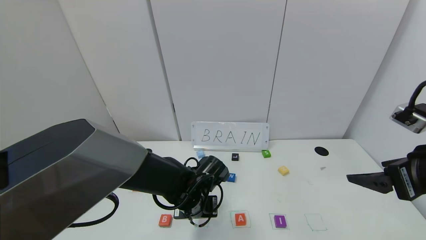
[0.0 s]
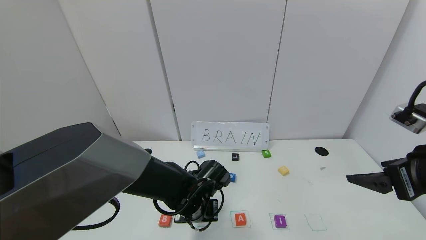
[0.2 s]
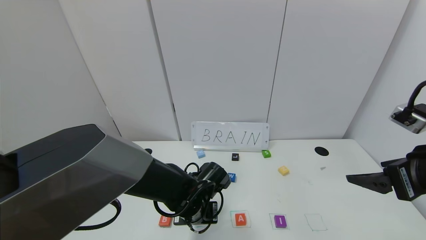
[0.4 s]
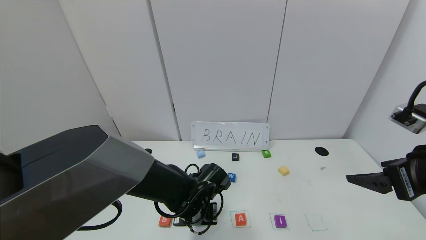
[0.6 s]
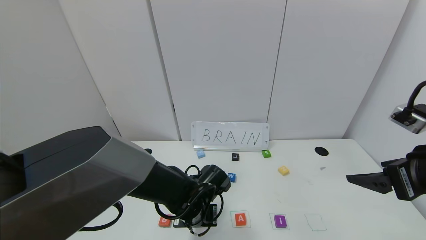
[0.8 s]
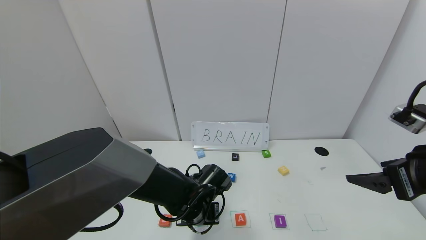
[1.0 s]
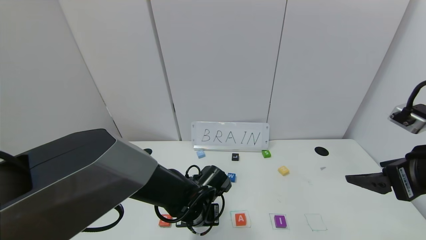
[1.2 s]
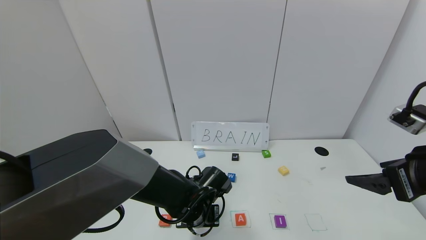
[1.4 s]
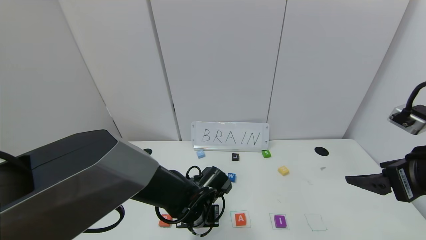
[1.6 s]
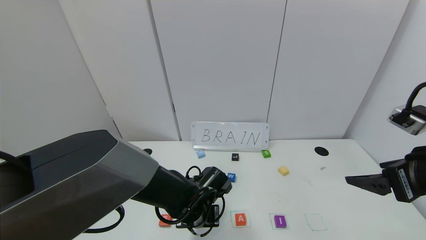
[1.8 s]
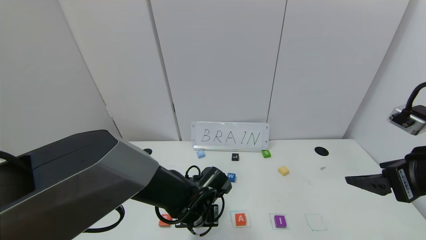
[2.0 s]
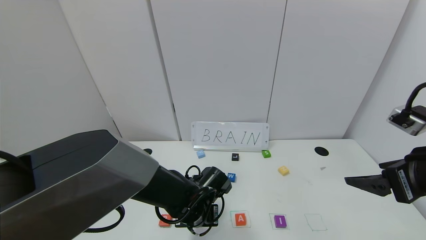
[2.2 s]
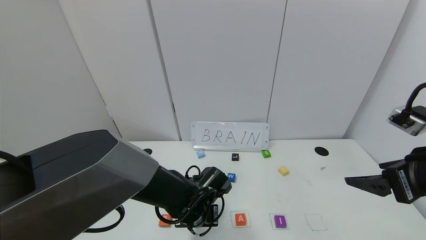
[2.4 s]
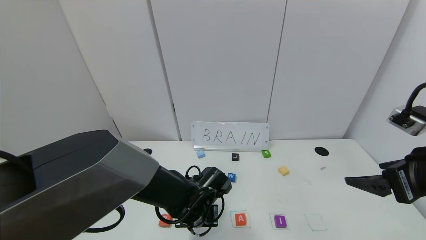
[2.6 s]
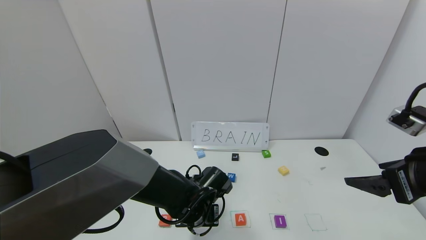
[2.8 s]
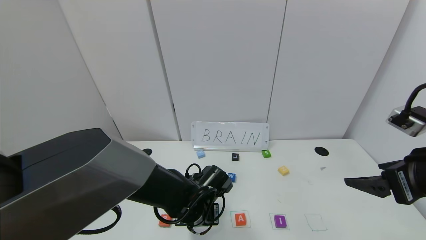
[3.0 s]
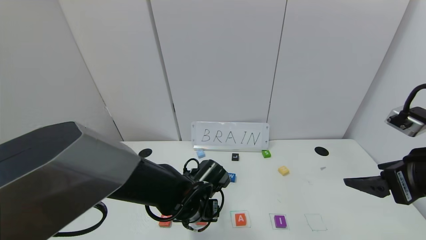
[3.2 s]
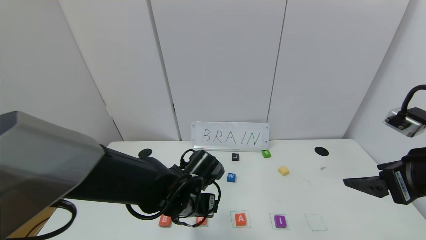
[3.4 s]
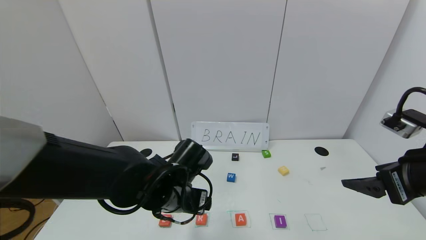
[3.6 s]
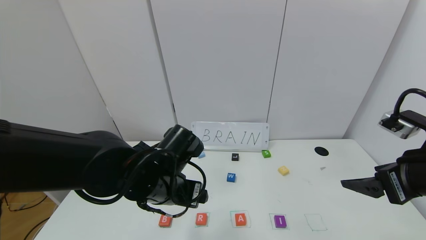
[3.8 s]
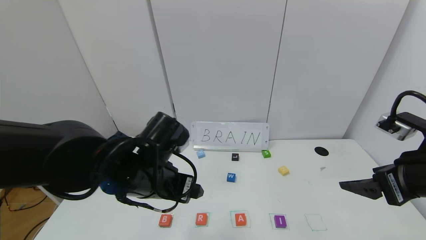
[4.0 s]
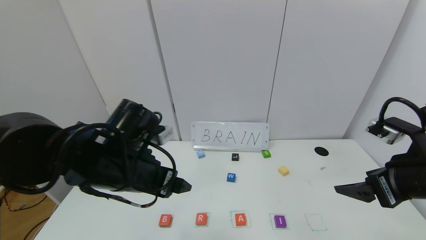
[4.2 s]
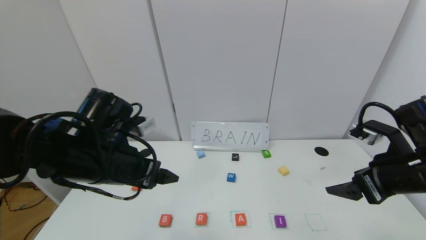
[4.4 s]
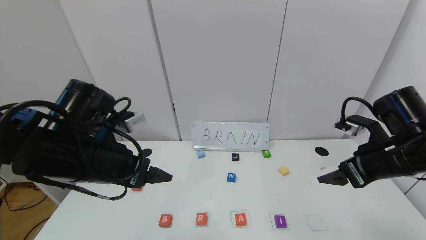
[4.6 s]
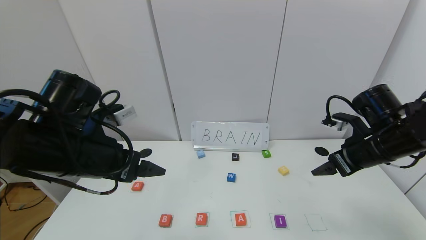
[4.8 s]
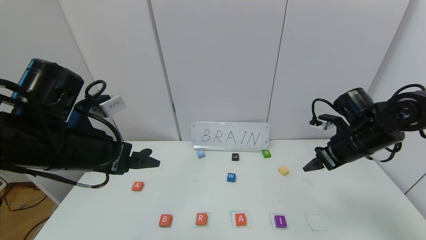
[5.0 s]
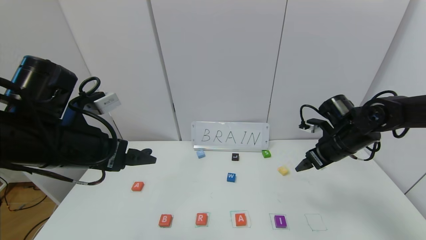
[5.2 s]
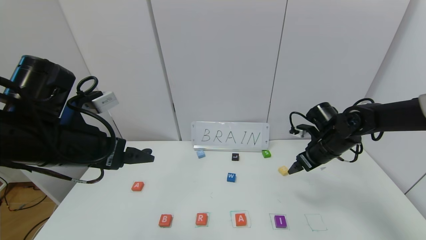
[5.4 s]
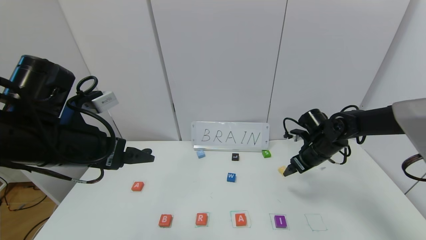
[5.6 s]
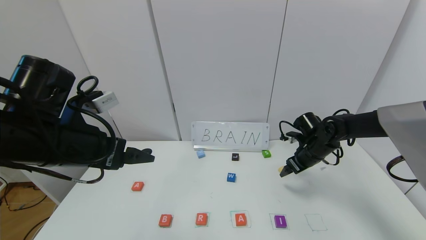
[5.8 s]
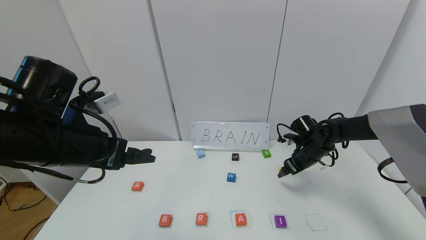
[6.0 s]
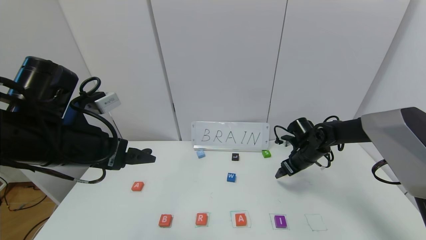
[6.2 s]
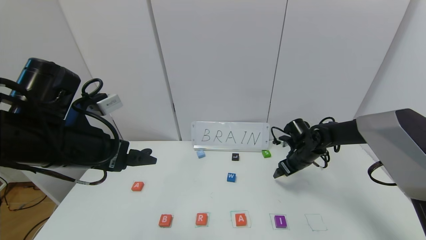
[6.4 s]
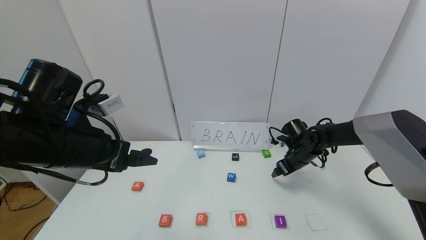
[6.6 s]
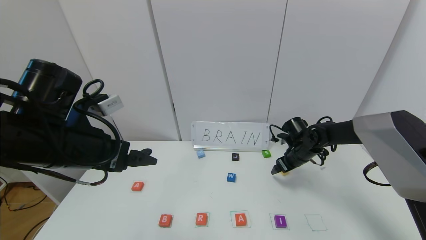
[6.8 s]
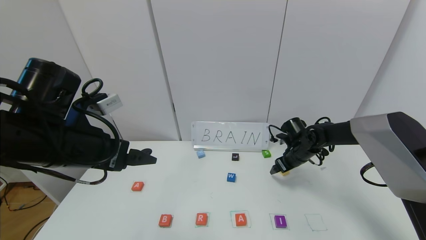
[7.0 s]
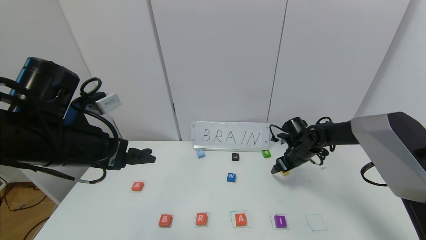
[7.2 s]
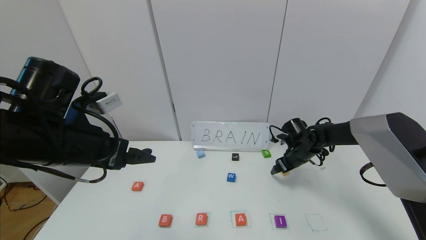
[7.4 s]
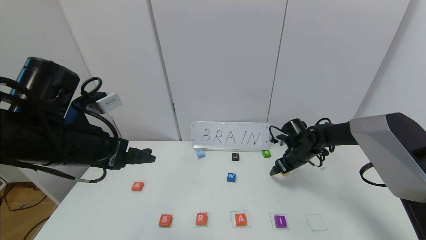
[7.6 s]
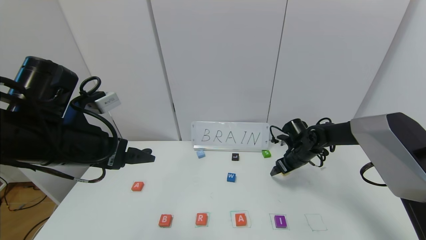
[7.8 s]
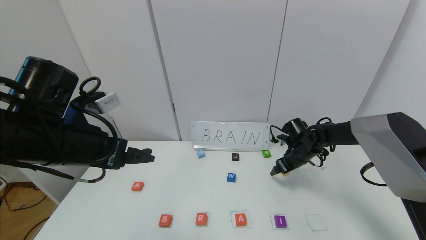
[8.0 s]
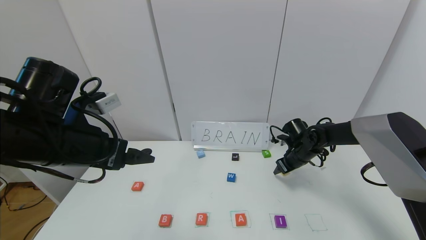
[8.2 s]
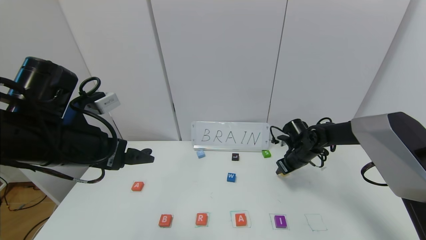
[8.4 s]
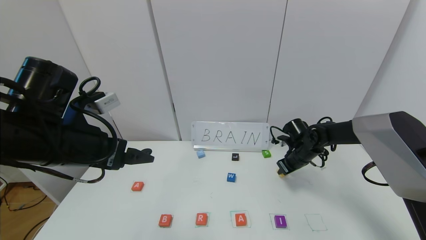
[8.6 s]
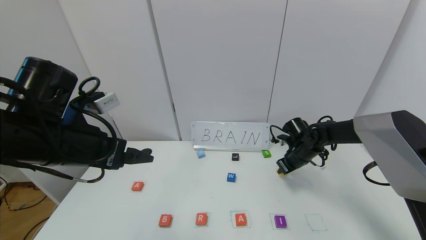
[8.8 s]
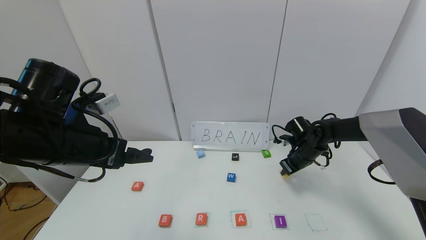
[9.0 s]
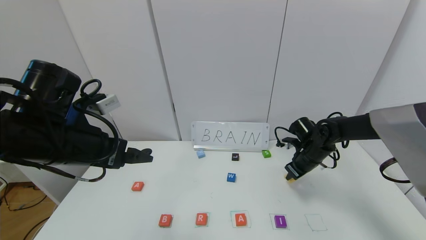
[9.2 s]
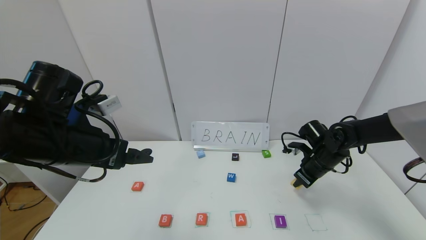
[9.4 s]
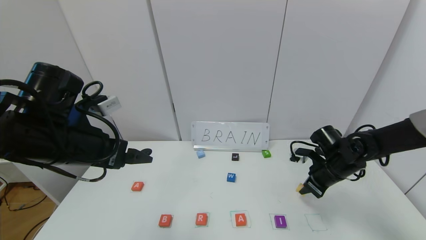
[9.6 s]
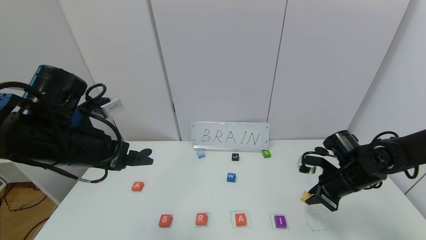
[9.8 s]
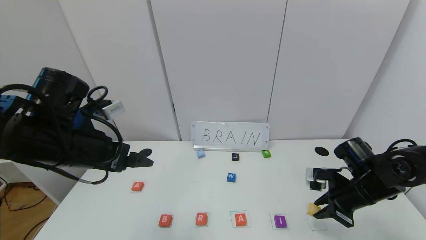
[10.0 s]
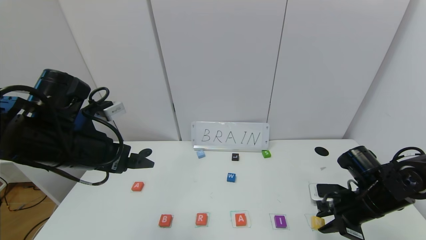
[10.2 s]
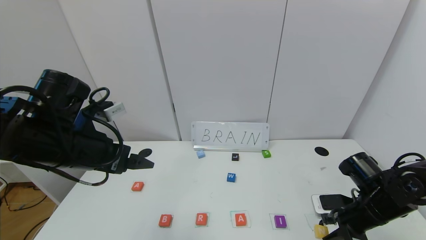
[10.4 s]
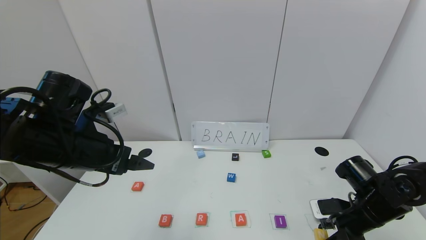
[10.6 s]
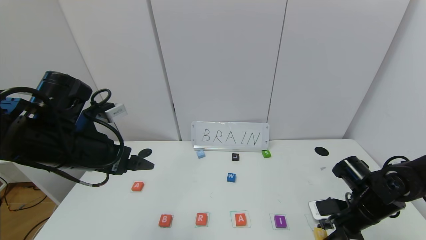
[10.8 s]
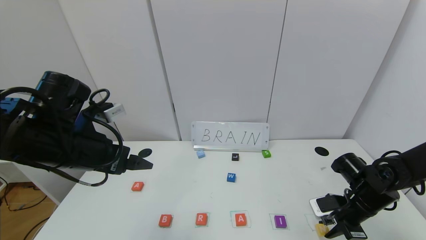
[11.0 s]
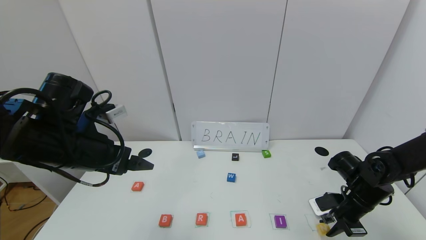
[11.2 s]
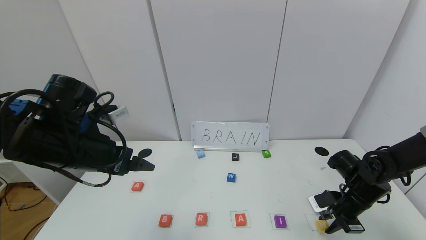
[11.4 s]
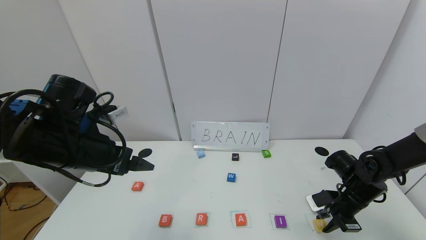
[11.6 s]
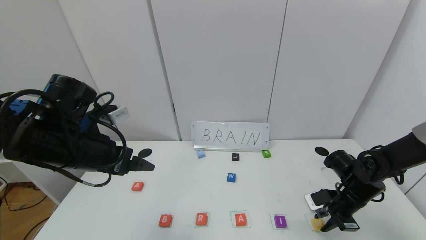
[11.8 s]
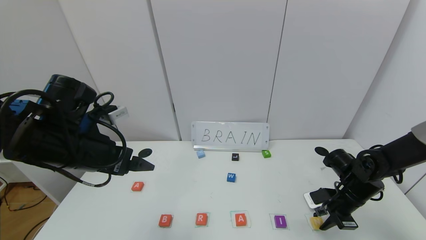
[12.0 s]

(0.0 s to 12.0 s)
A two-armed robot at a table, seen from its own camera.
Task of the whole recording: use the gripper to find blocks with the letters b, a, a, and i on the table and arrange them into BAAI, then find r and N and turn the arranged baai into brian.
Step, 0.0 s - 2.8 s: Place the block R in the second location.
0.0 s - 1.6 s: The grippers make only small movements.
1.6 s - 3.0 s: The left gripper opens.
3.0 s - 4.4 s: The left gripper moves upward and to the left, roughly 20 cm. The right gripper changes place by some 5 cm.
4.4 s - 6.0 s: The left gripper moves approximately 5 cm. Meanwhile the right gripper is displaced forward and downward by roughly 25 cm.
6.0 s - 7.6 s: The grippers move only a little.
7.6 s - 9.0 s: The right gripper closes its fingers.
9.0 s - 10.4 s: The right gripper heads backward, covering about 20 cm.
10.4 s - 12.0 s: The right gripper goes about 5 cm forward.

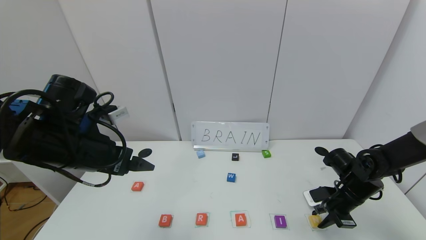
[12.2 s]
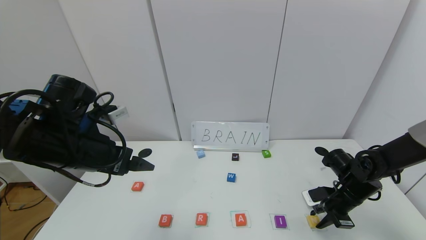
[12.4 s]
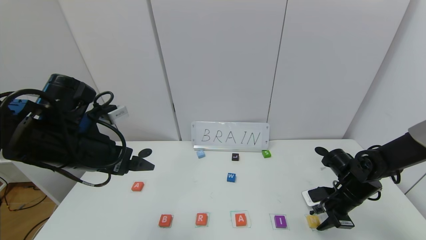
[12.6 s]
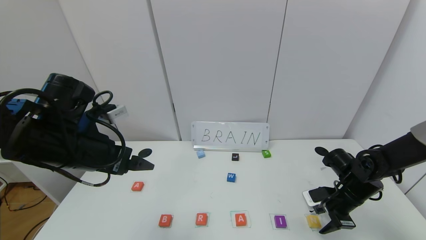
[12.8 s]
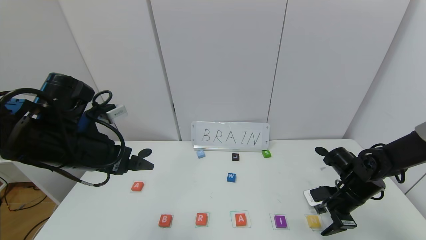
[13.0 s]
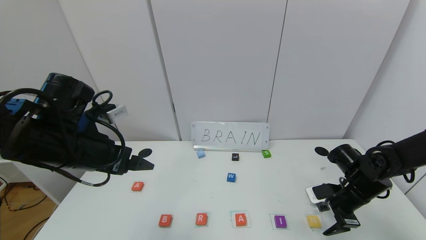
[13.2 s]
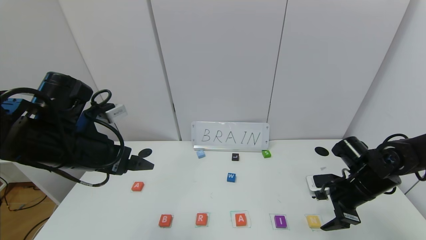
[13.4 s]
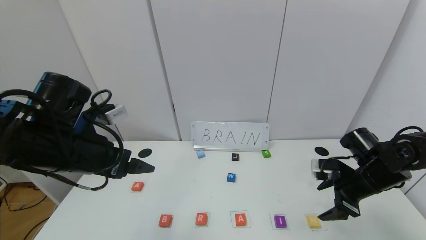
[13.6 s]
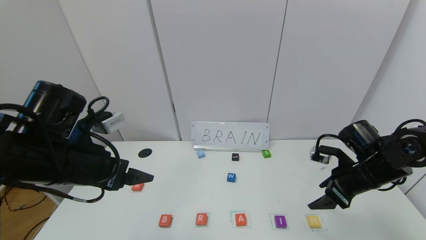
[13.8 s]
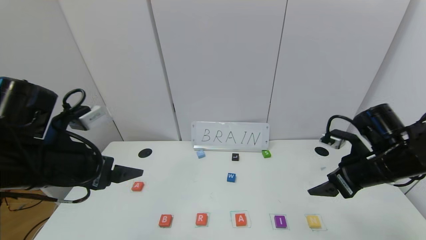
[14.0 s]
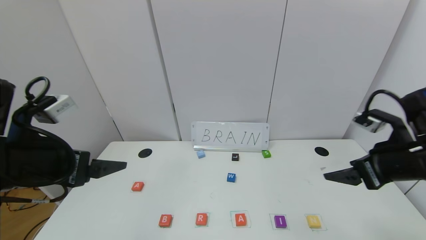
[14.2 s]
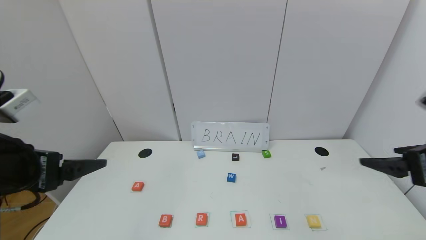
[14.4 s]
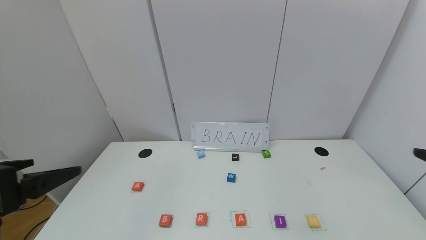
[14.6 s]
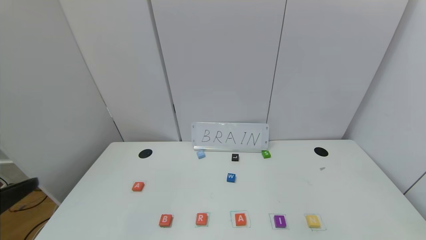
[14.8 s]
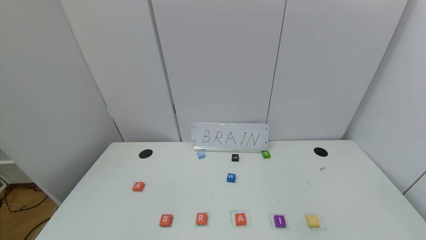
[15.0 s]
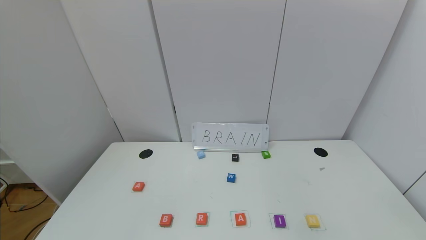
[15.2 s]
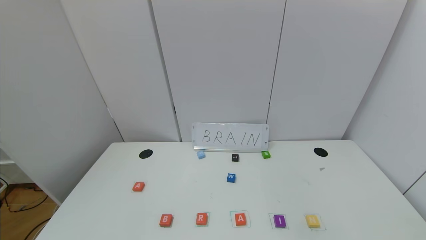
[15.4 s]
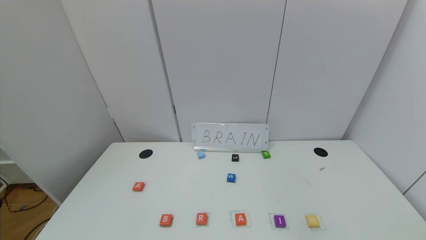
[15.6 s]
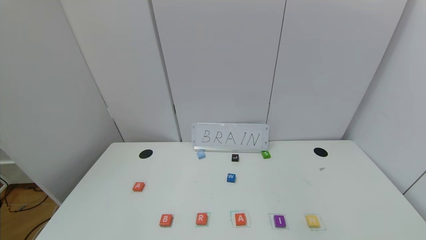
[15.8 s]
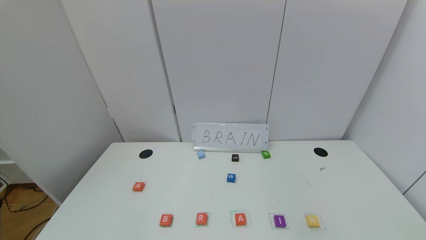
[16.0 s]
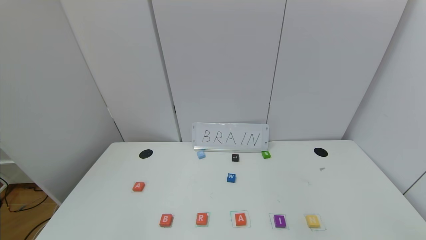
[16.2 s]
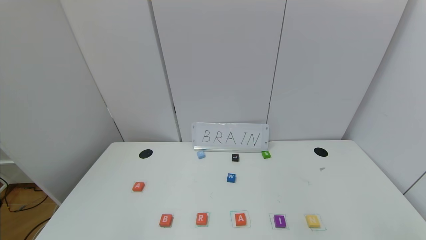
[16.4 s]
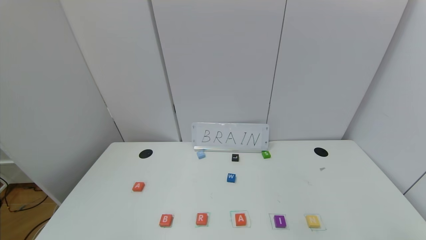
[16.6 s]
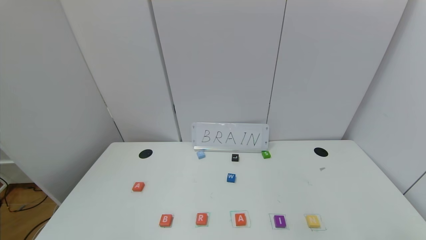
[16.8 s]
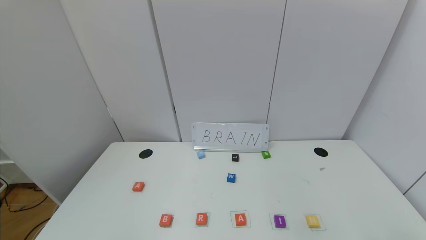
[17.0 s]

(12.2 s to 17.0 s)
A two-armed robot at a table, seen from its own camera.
Task of the whole recording: use the gripper to find blocks with the letters b, a, a, and i on the table and arrange them into BAAI, then find r and N and turn the arranged baai into brian.
12.2 s - 13.8 s: The right gripper is displaced upward by roughly 10 cm, and opens up.
13.8 s - 15.4 s: The grippers both shift backward by about 35 cm.
